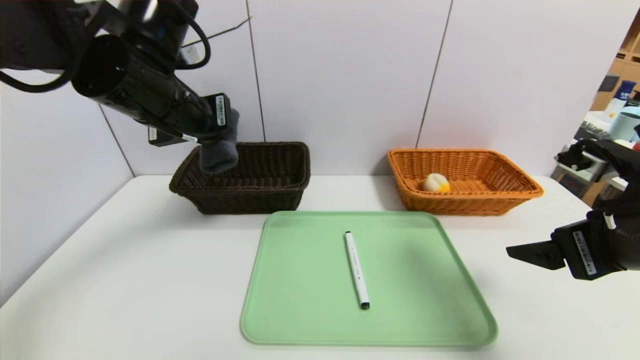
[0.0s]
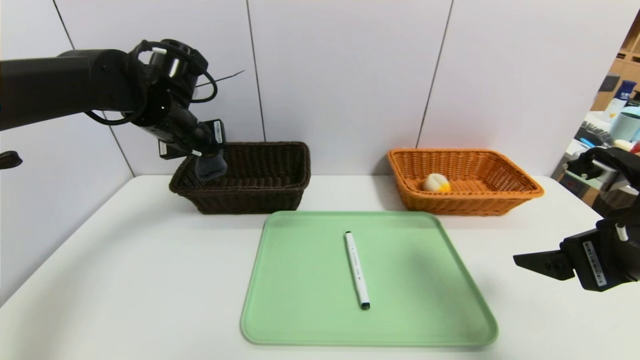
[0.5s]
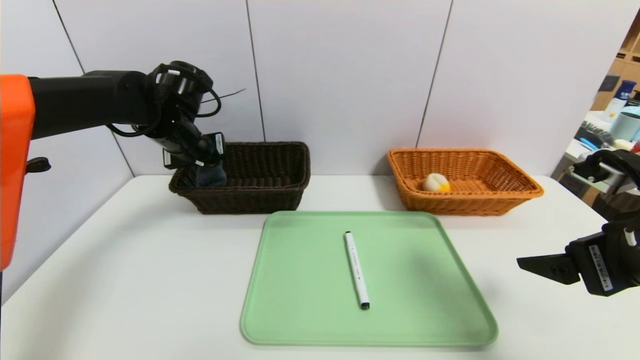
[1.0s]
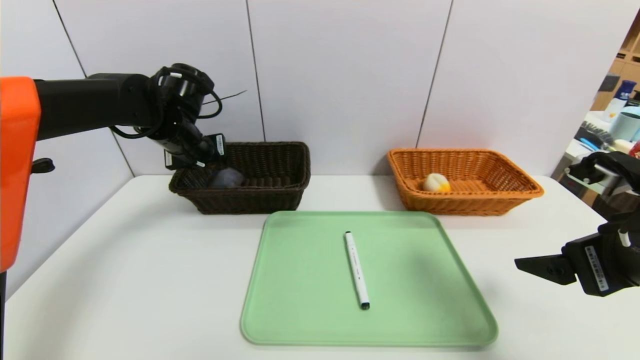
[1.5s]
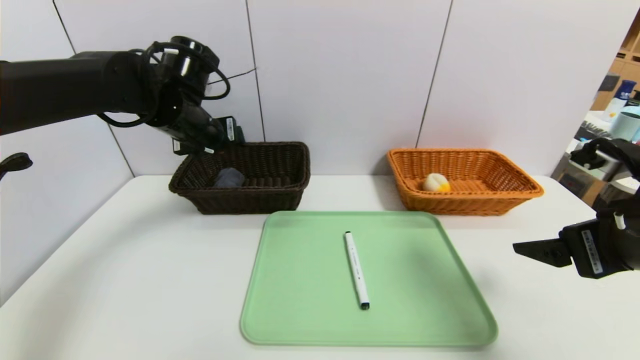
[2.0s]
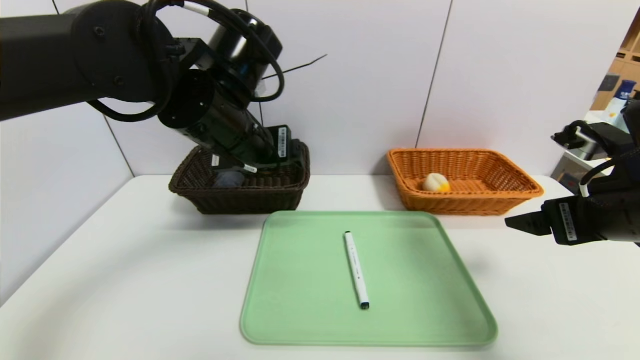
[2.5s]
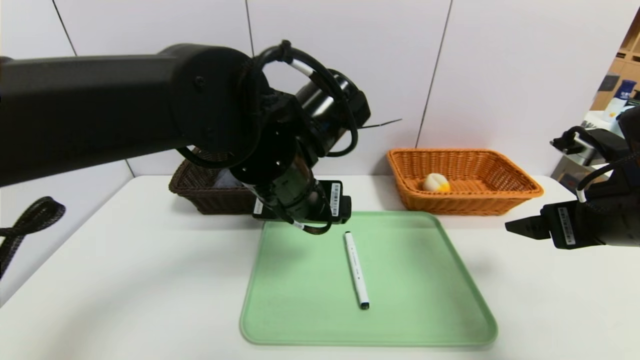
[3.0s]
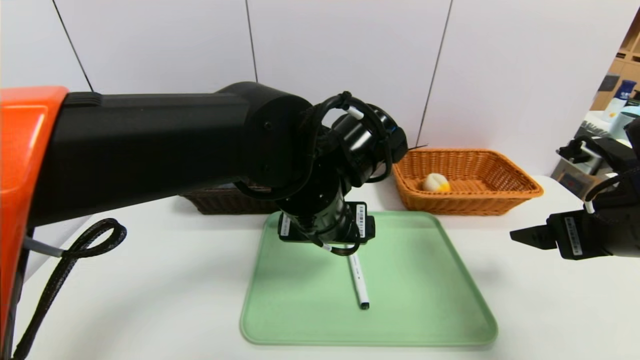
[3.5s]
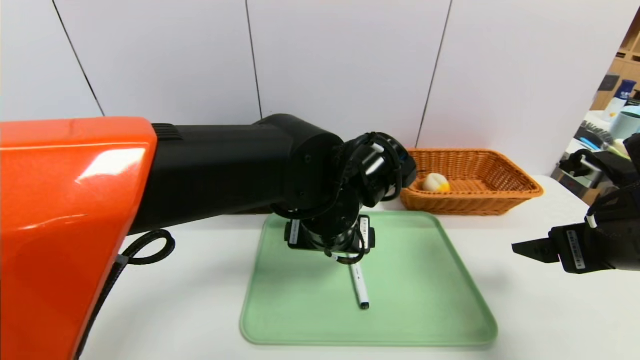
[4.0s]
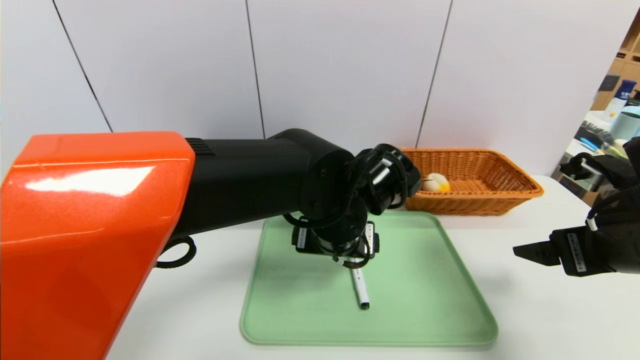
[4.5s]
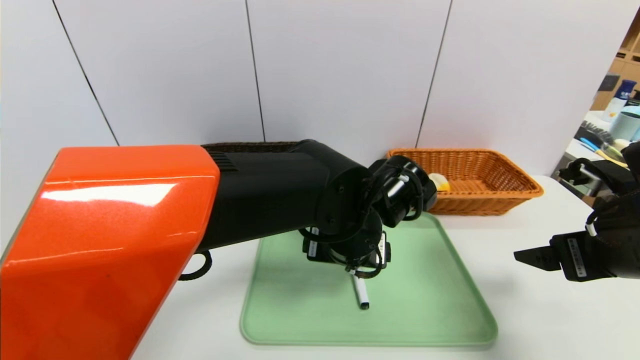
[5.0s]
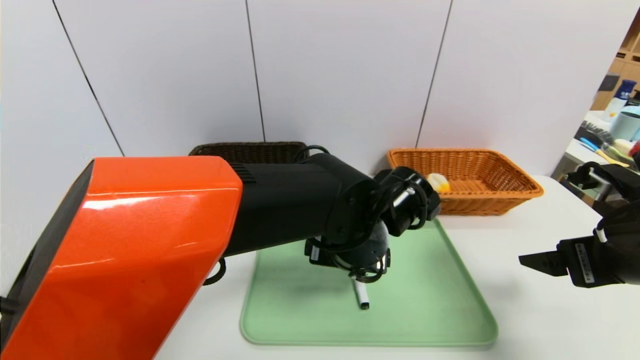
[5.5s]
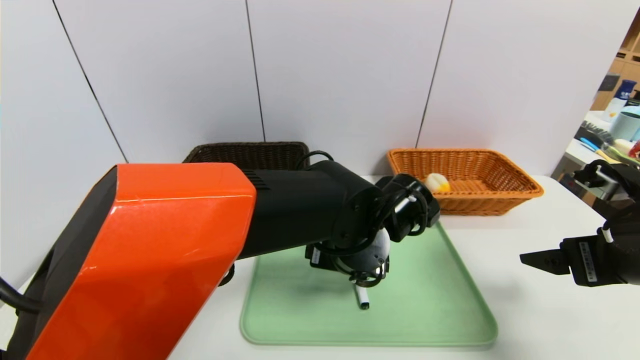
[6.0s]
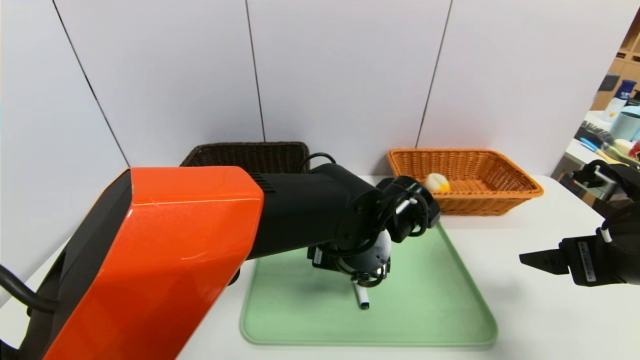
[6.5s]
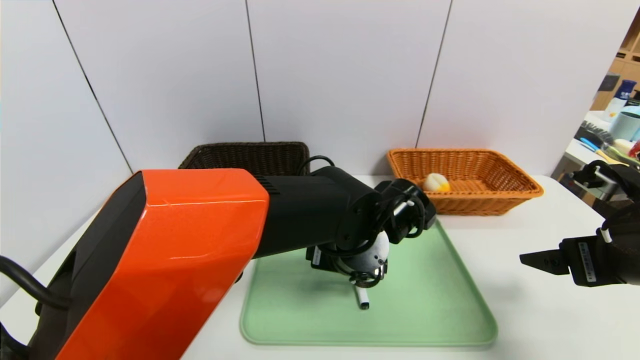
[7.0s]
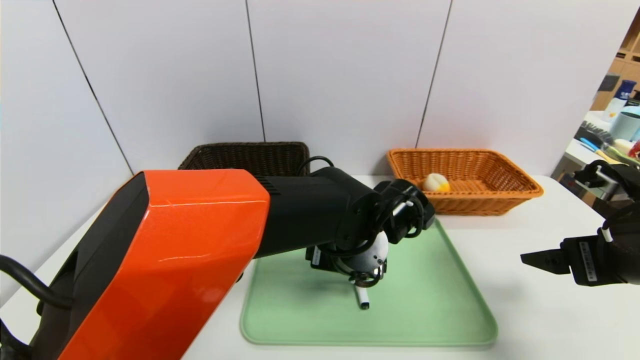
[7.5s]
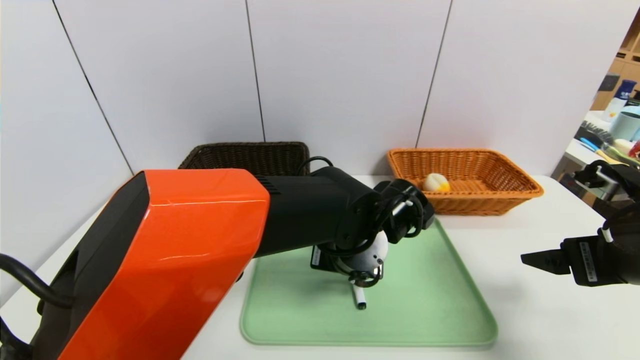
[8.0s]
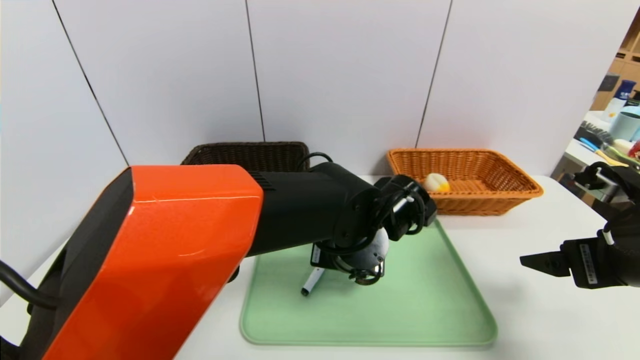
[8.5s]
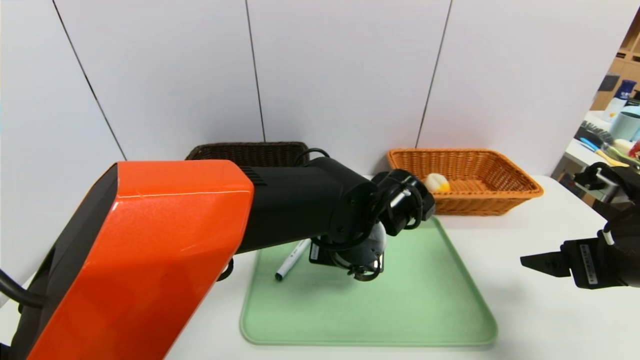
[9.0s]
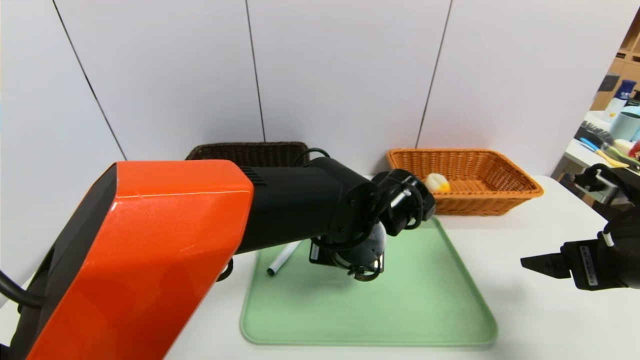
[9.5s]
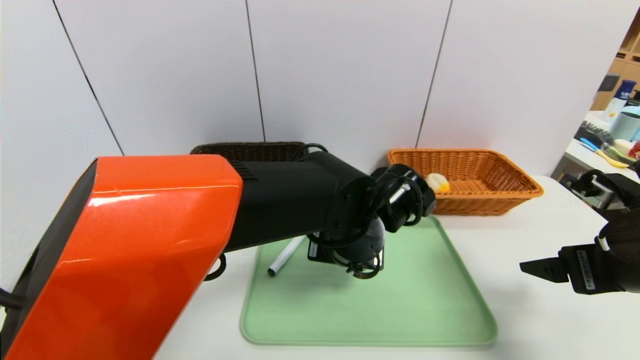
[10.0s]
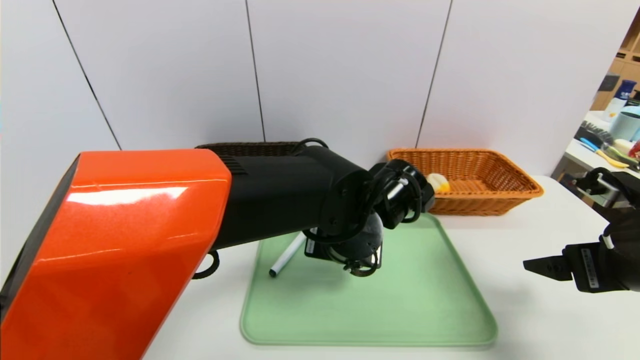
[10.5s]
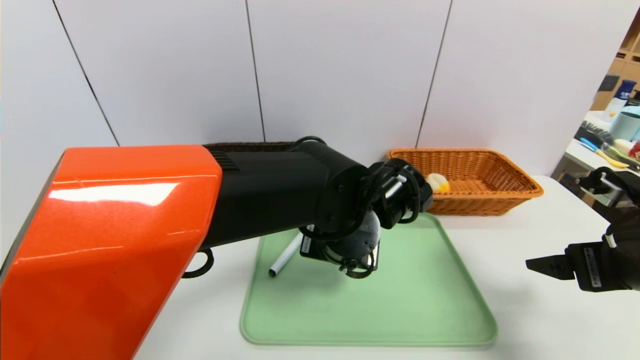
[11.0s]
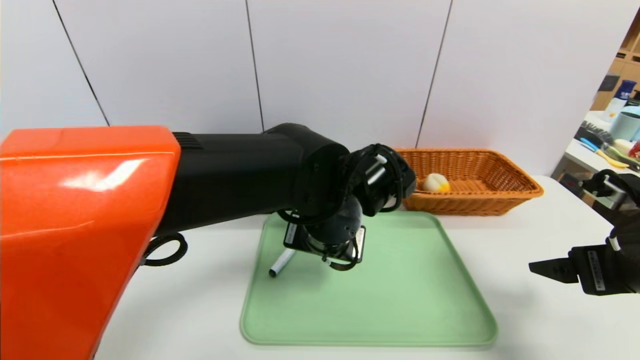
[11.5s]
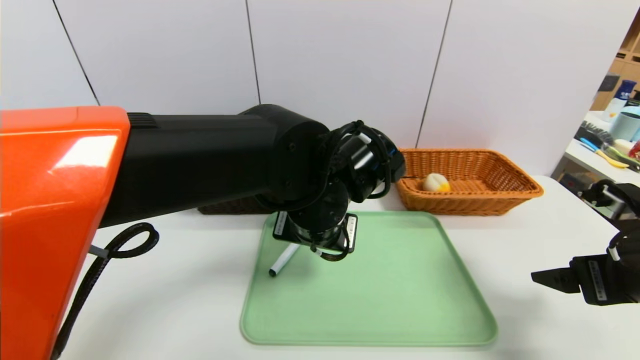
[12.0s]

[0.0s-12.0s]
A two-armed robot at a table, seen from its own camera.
Task of the whole recording: place the food in the right basket with the right gripper, and place the non food items in the left basket with the left gripper.
0.0s to 2.0s: The left gripper heads forward, covering approximately 5 cm, and opens its fingers.
2.0s to 4.0s: The left gripper shifts approximately 25 cm to the right and backward.
4.0s to 6.0s: The left gripper moves roughly 5 cm.
6.0s to 8.0s: The left gripper closes.
8.0s to 10.0s: The left gripper closes its fingers.
10.0s to 12.0s: The left gripper ends up some 5 cm from where it was, and opens its fingers.

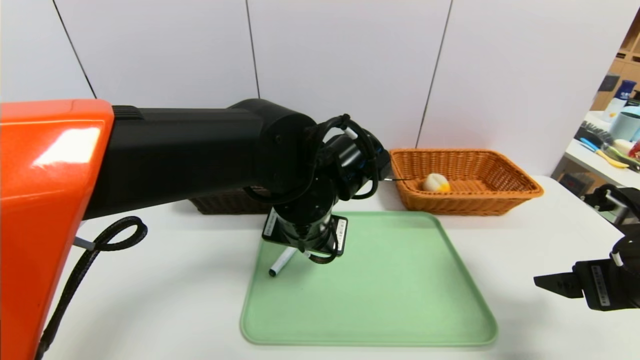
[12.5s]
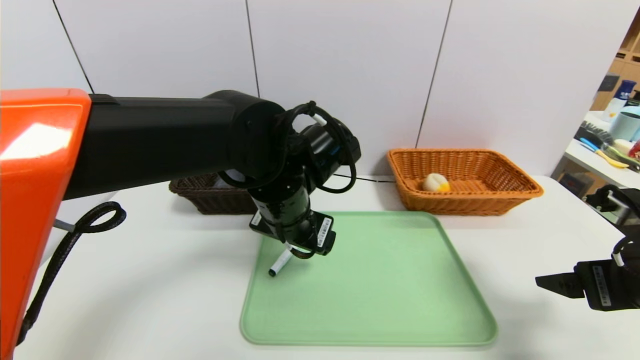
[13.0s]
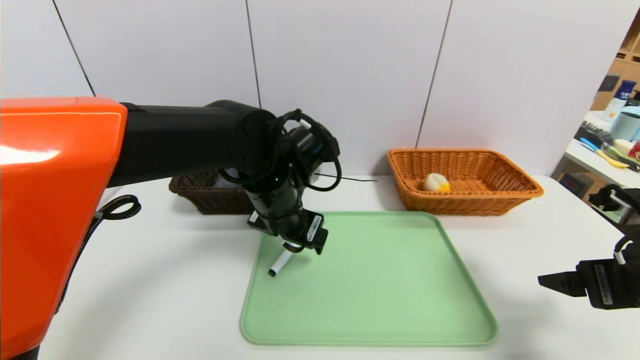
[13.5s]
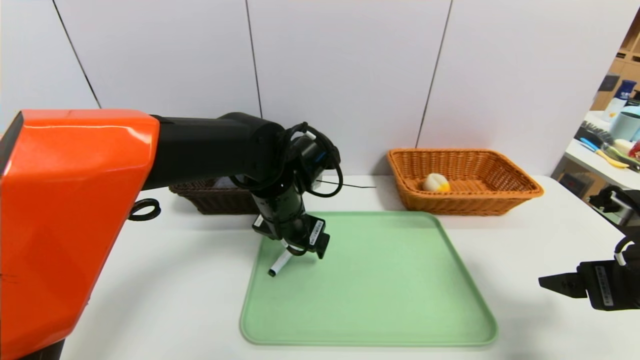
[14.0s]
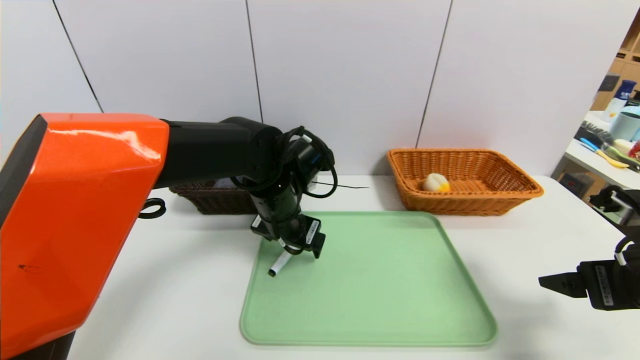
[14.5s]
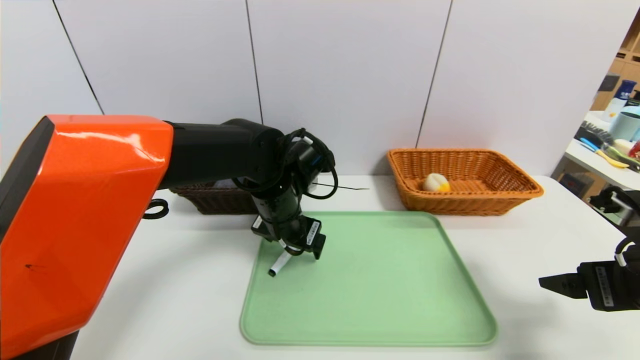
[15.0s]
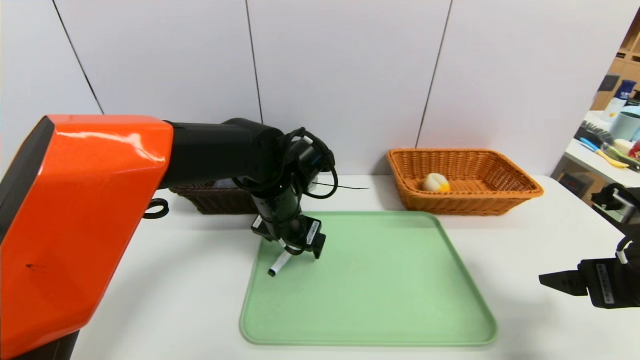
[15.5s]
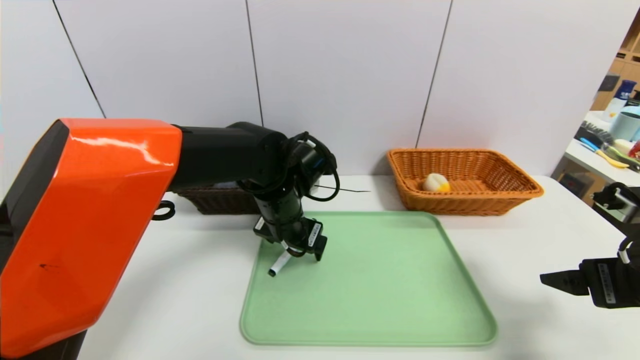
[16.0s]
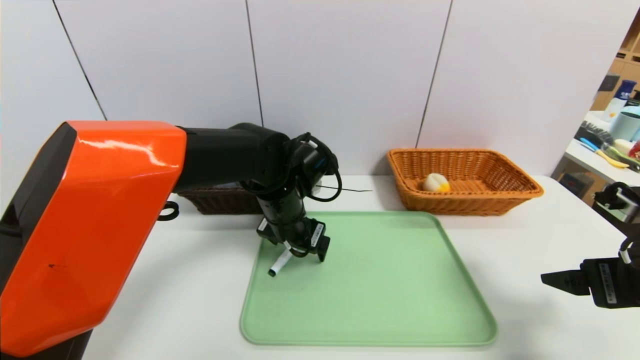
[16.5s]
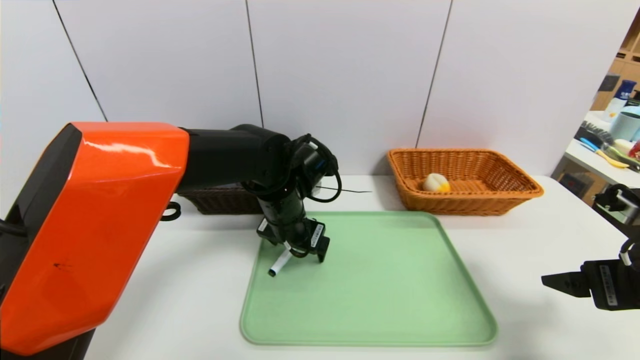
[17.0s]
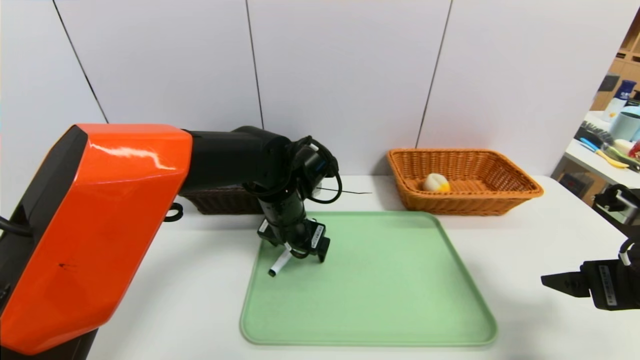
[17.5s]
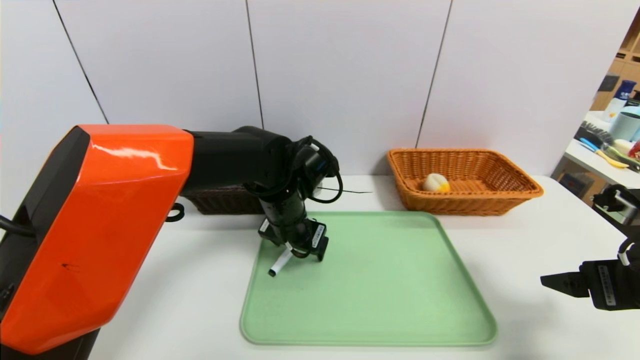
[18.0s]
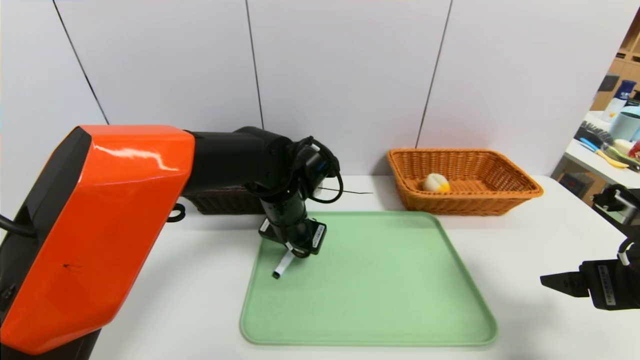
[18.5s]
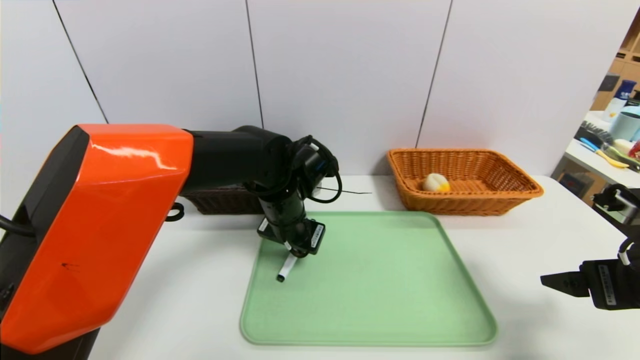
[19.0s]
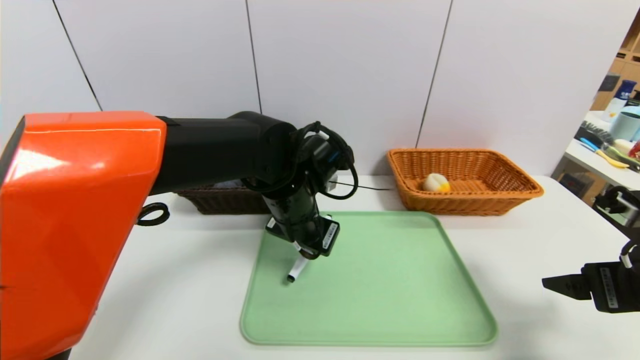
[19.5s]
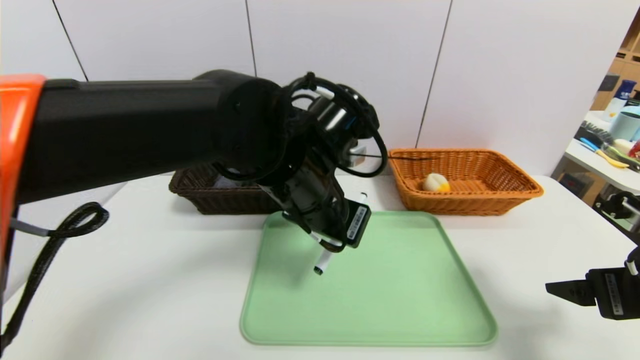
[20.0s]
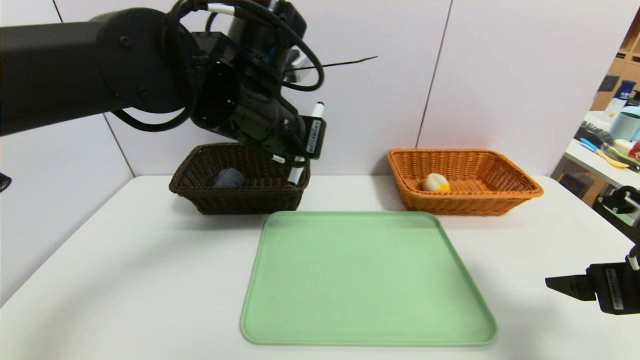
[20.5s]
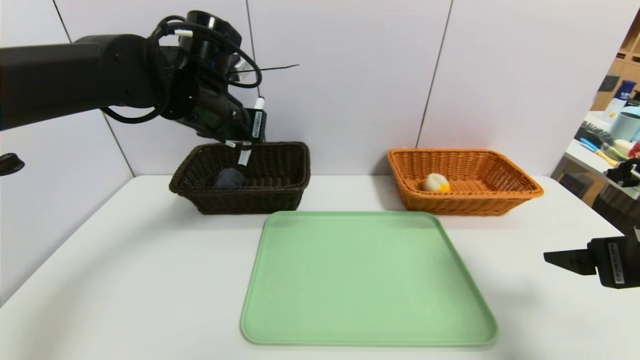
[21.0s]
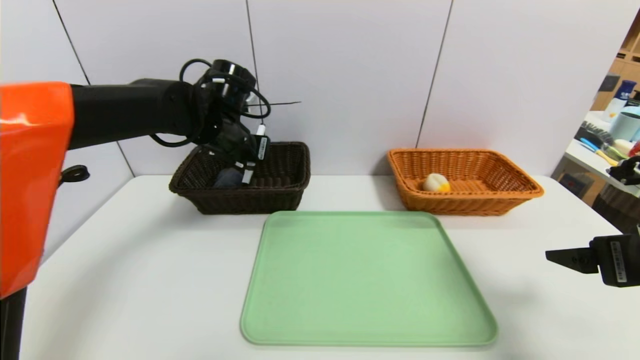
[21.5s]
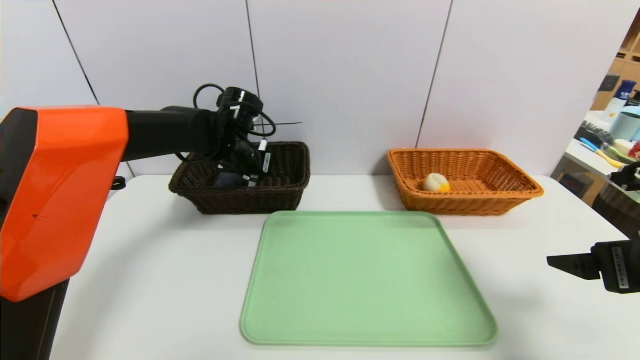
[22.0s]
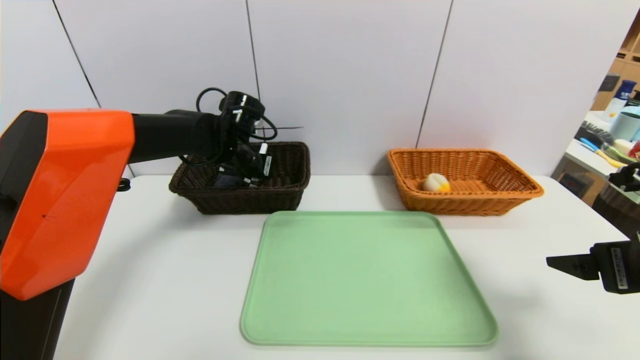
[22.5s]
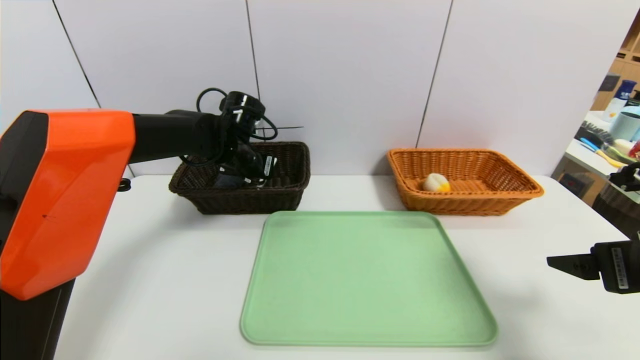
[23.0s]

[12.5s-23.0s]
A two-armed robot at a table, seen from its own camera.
Task of the whole recording: place the food in the right basket with the right gripper, and place the non food items in the left basket with the left gripper.
12.5s to 14.5s: The left gripper is displaced forward by about 5 cm.
14.5s to 16.5s: The two grippers keep their place.
16.5s to 19.0s: The left gripper closes its fingers.
19.0s to 21.0s: The left gripper shifts some 15 cm upward and to the left.
21.0s to 23.0s: The left gripper heads downward and forward, covering about 10 cm, and opens.
